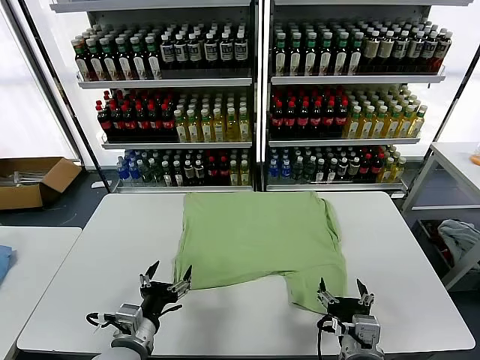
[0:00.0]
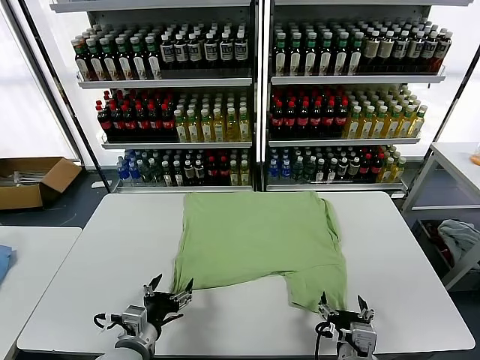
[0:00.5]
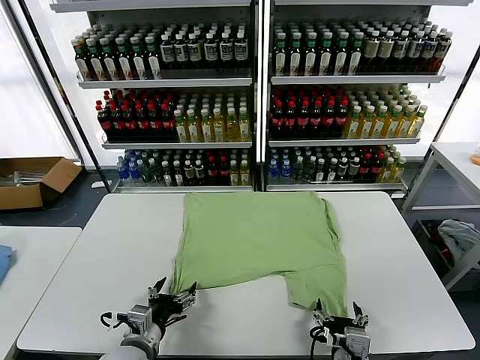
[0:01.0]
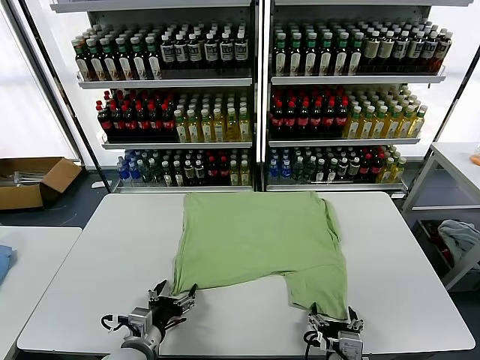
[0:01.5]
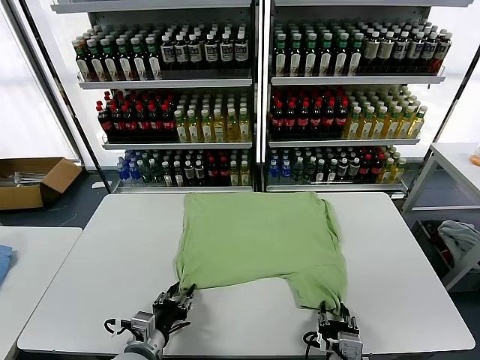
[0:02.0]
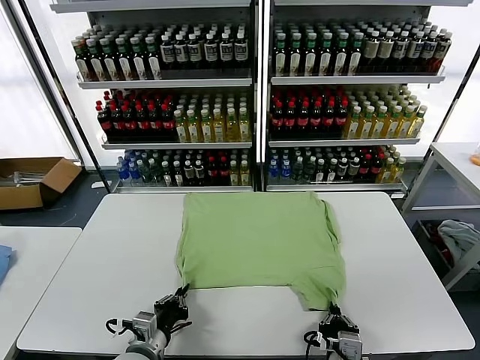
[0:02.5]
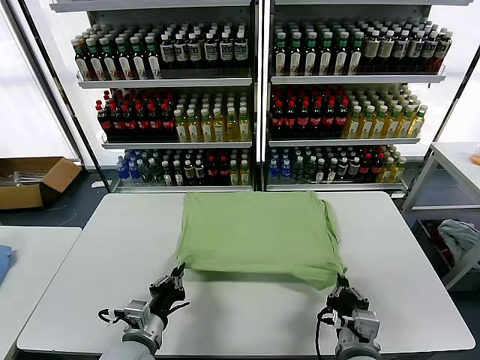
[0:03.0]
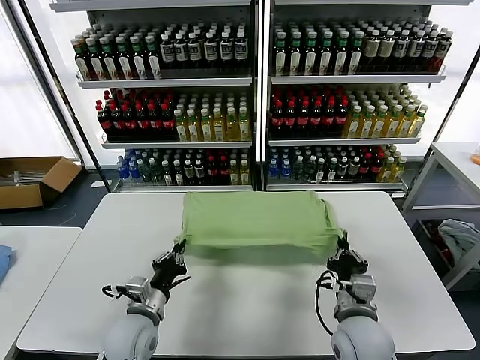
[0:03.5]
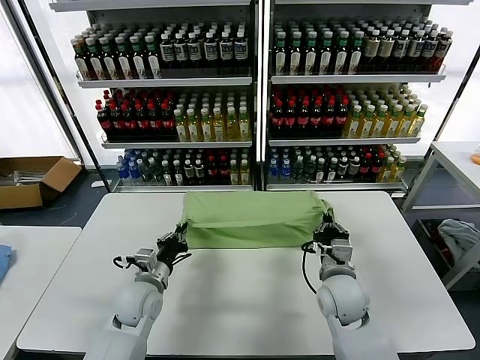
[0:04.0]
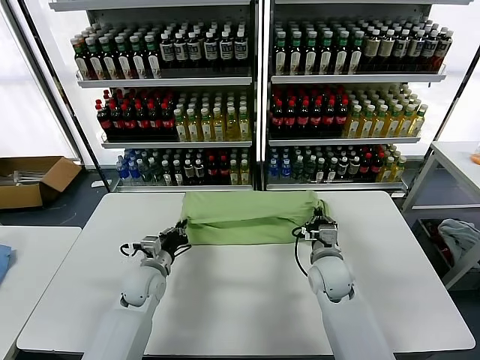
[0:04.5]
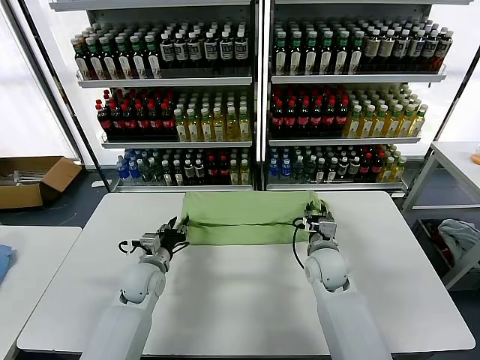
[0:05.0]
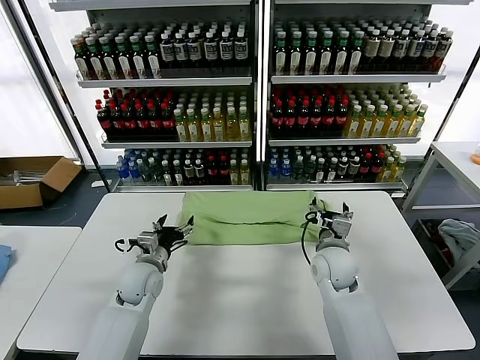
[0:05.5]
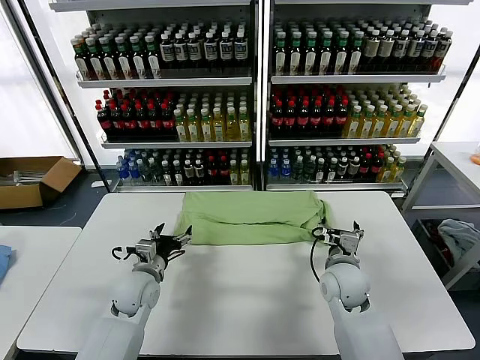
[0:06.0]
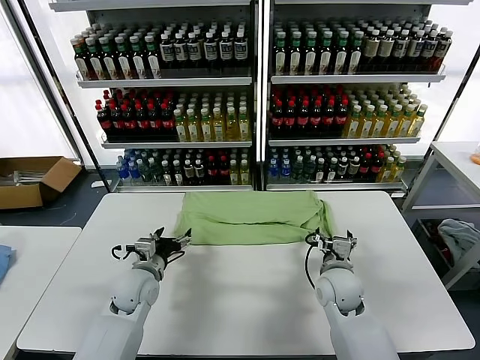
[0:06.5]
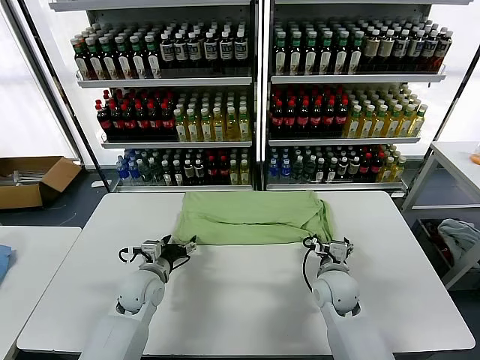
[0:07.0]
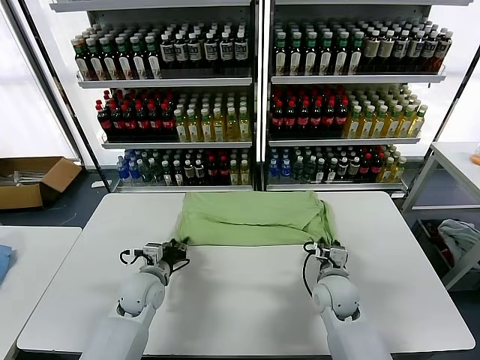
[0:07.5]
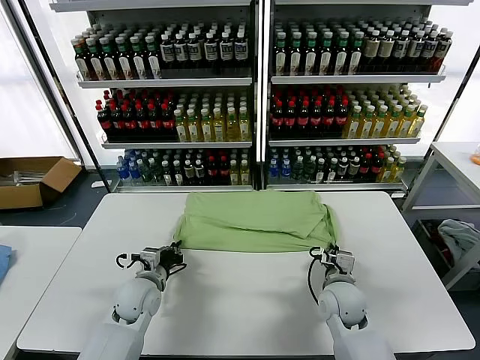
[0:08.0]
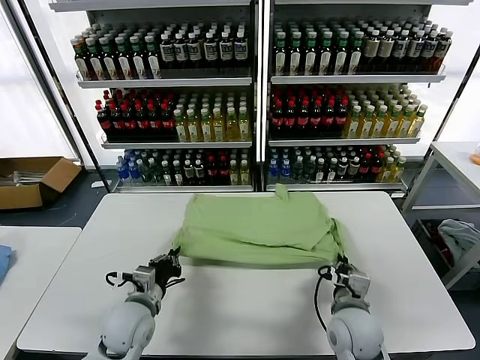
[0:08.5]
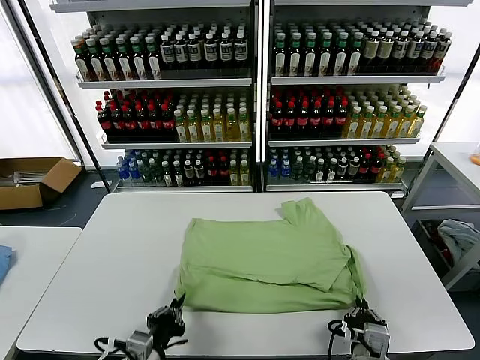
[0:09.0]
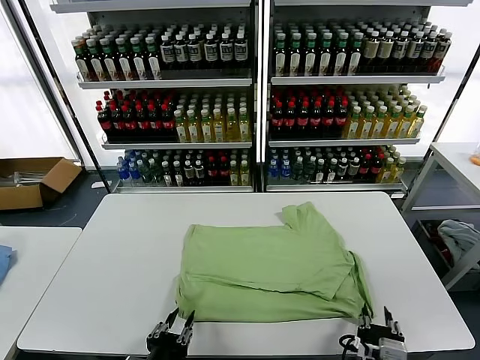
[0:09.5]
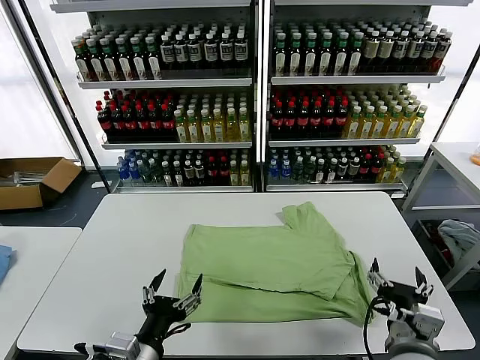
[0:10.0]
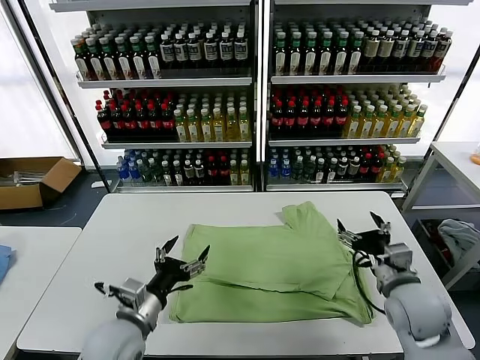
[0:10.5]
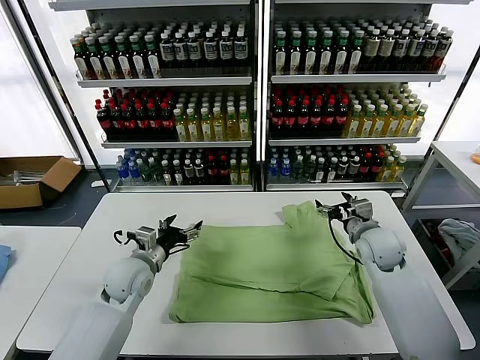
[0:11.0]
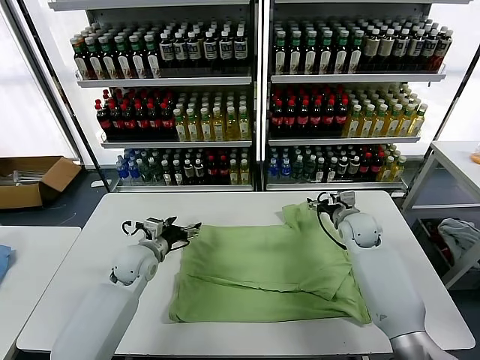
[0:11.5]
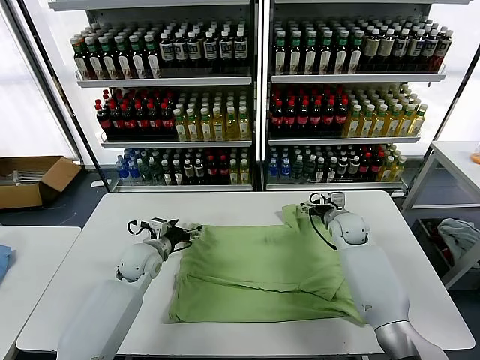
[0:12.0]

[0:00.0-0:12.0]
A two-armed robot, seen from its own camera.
Task of the whole recording: fold and organize the clothes.
Step, 0:00.0 to 0:02.0: use both grippers simultaneously to clamp the lower edge of the clothing fabric.
Step, 0:02.5 to 0:05.0: use both grippers to drag the lower edge of the fabric forward and fold it over the upper edge.
Step, 0:05.5 to 0:09.5: Drag the clothes downward with both gripper.
0:02.0 to 0:04.0: Both grippers move forward, approximately 15 cm. The right gripper closes up. Meanwhile the left gripper closes.
0:04.0 to 0:06.0: The left gripper opens its fingers. The right gripper opens.
0:06.0 to 0:08.0: The right gripper closes its fingers, while the left gripper closes.
0:08.0 to 0:10.0: Both grippers travel together backward and upward, about 20 cm. The right gripper opens its fingers; the left gripper opens its fingers.
0:10.0 to 0:12.0: The two grippers go roughly 35 cm forward.

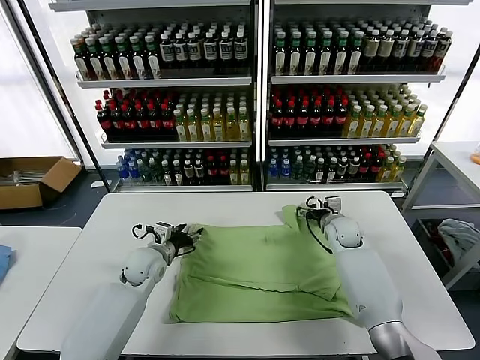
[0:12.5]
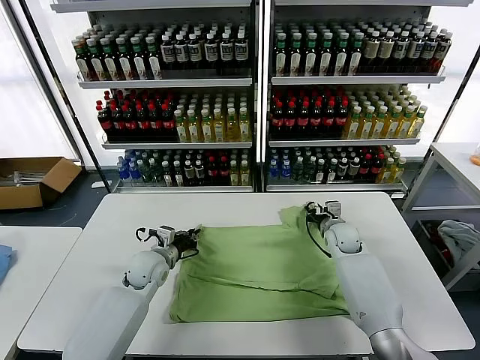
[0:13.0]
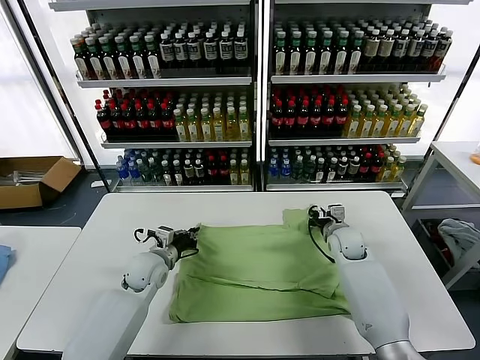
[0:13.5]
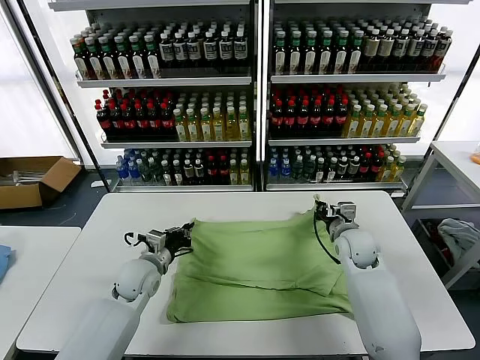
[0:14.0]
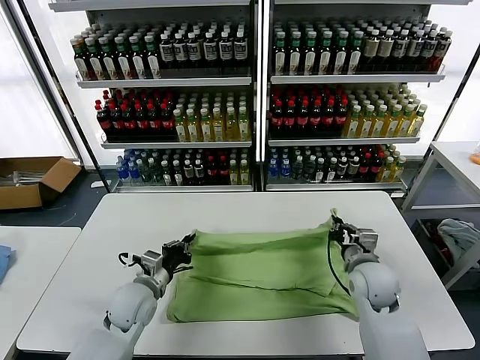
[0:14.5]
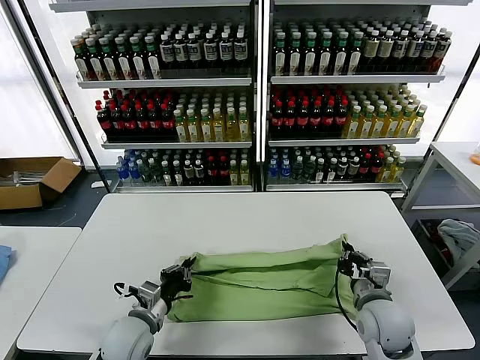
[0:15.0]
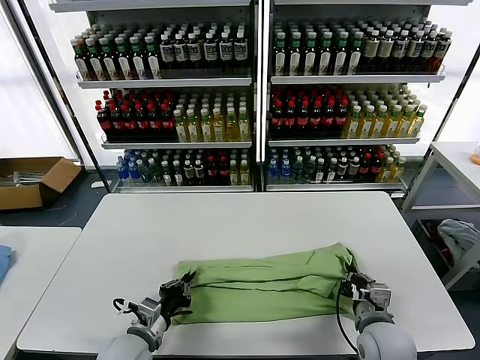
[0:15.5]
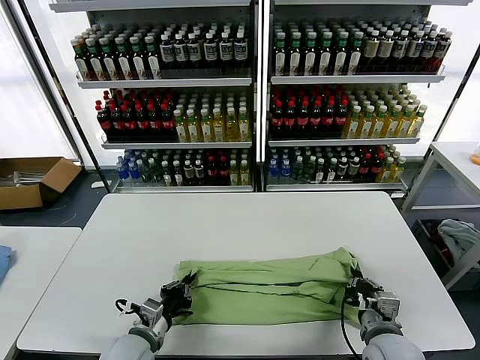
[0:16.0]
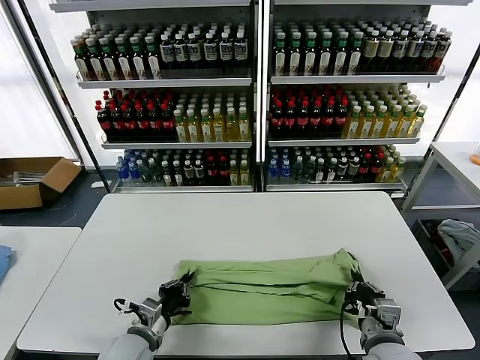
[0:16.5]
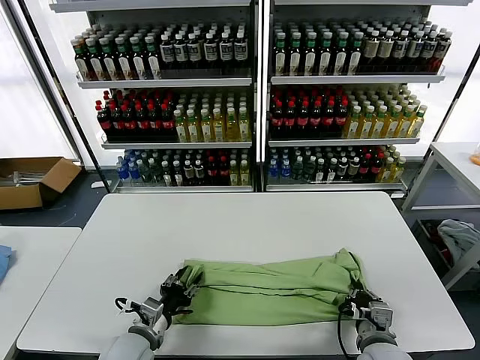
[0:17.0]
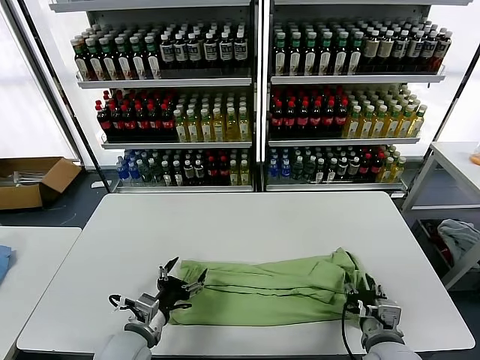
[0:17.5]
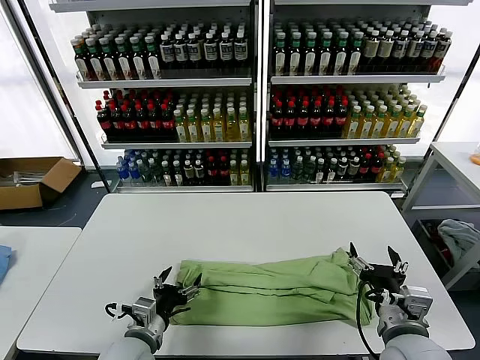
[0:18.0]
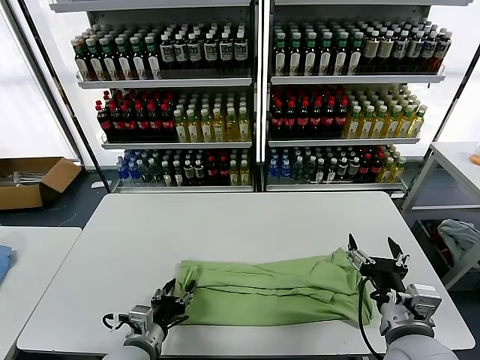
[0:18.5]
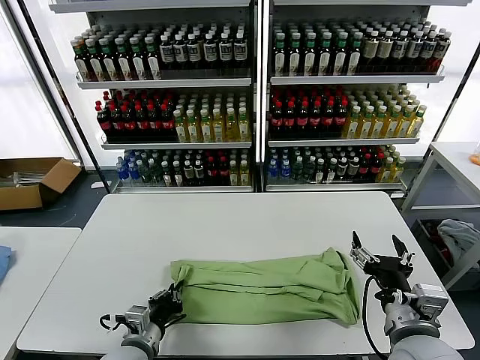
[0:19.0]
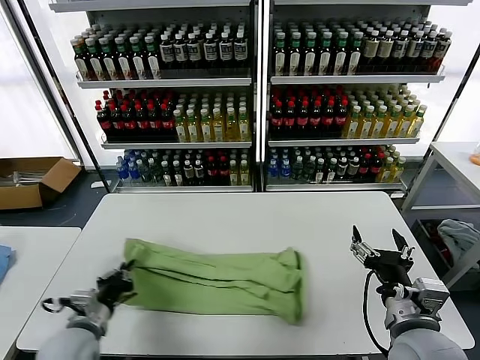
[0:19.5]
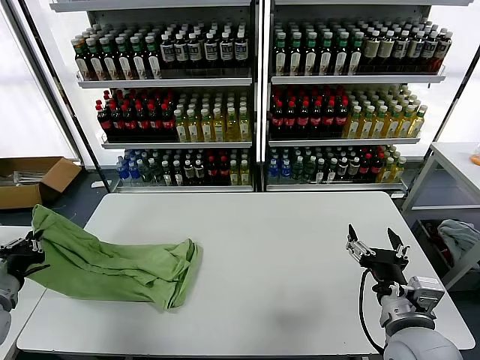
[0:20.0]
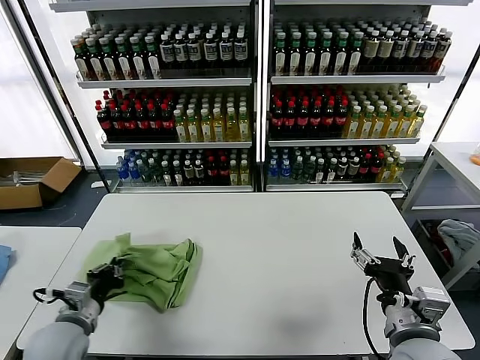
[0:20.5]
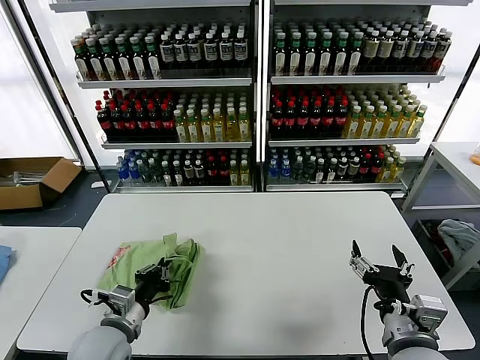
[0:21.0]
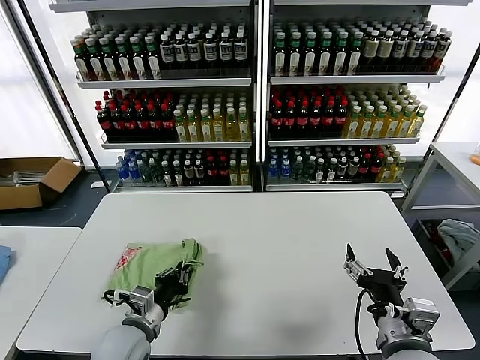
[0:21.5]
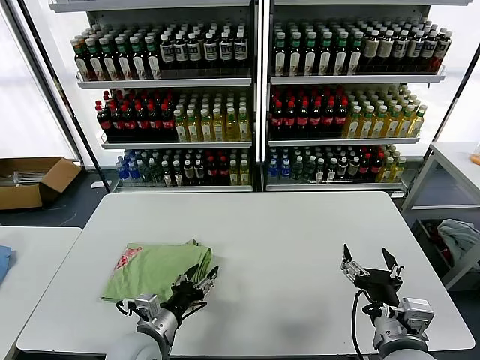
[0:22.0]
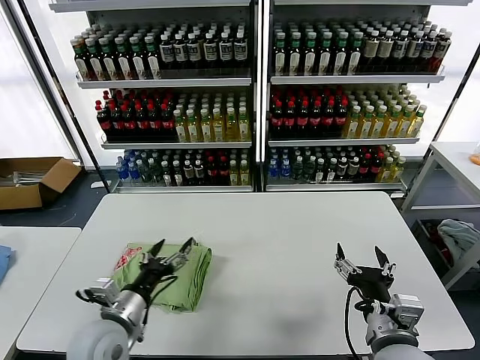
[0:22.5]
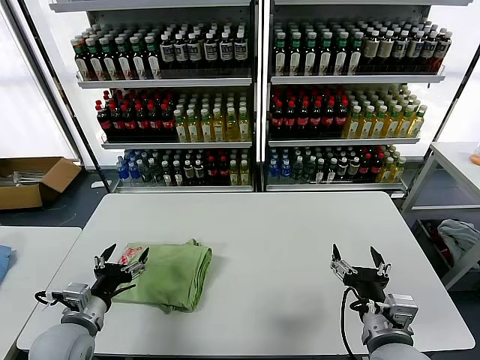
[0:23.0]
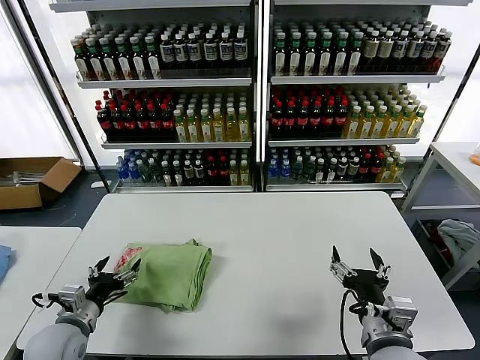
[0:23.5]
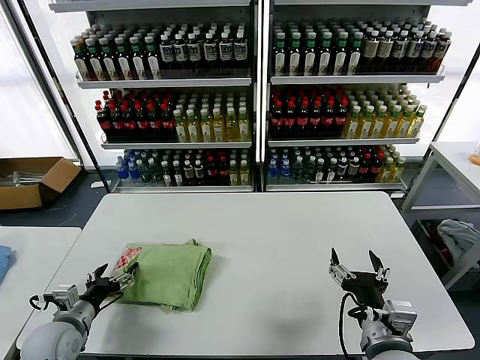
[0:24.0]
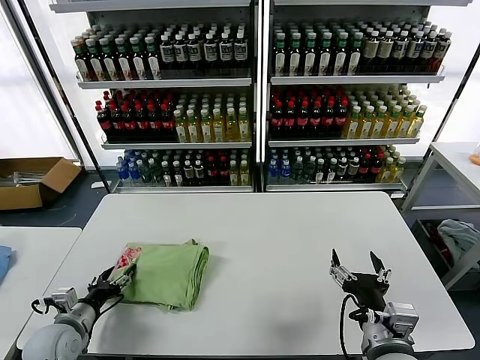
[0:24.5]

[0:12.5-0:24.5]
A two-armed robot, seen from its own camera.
Task of the whole recording: fold and organize the clothes.
Step, 0:13.5 to 0:17.5: use both grippers to drag the upper edge of the fabric backward and fold it over the lower edge.
Step, 0:18.0 to 0:19.0: use the left gripper to clamp the left edge of the fabric.
Step, 0:19.5 to 0:22.0: use the left gripper to drag the left edge of the fabric to the left and folds it over the right edge.
0:12.5 to 0:14.5: The left gripper goes some 10 cm backward, and closes its fingers. The right gripper moves backward, about 20 cm, and closes.
0:14.5 to 0:16.5: Both grippers travel together backward, approximately 15 cm.
0:16.5 to 0:18.5: The left gripper opens up. The right gripper heads upward, covering approximately 10 cm, and opens.
0:18.5 to 0:20.5: The left gripper heads to the left, covering roughly 15 cm, and closes up.
0:20.5 to 0:22.5: The left gripper goes roughly 10 cm to the right, and opens.
0:22.5 to 0:24.5: The left gripper is displaced to the left and downward by some 15 cm.

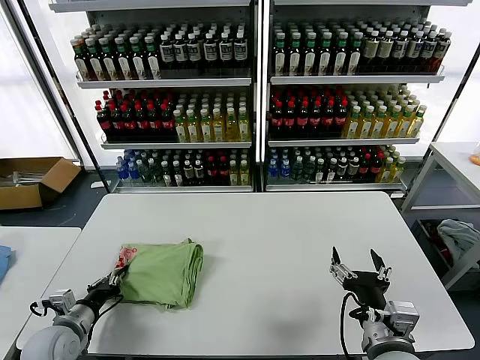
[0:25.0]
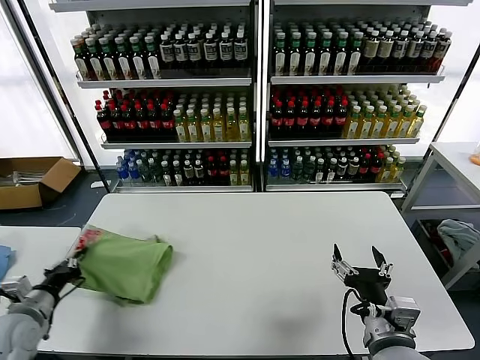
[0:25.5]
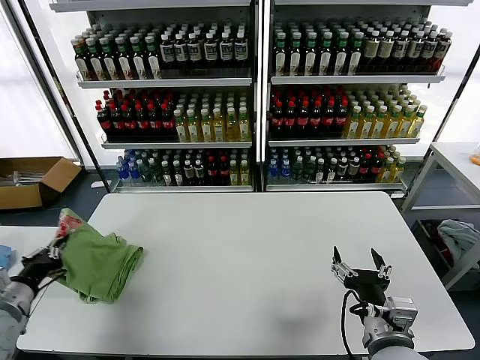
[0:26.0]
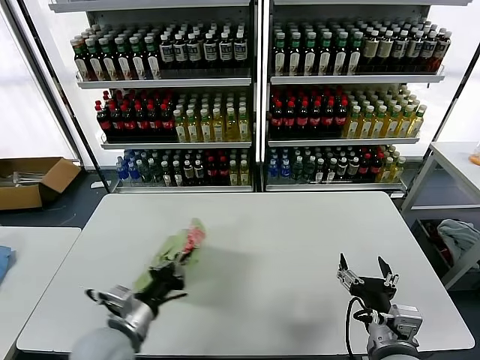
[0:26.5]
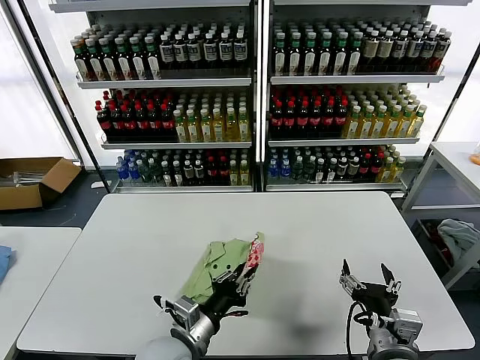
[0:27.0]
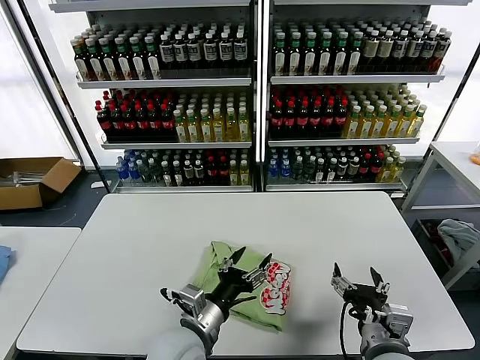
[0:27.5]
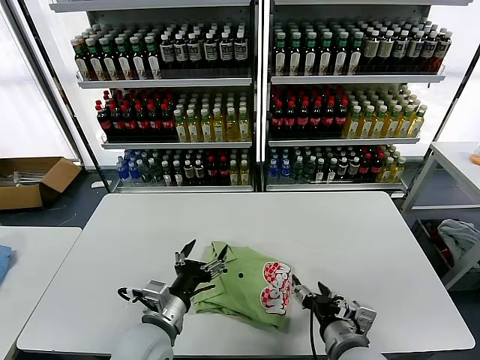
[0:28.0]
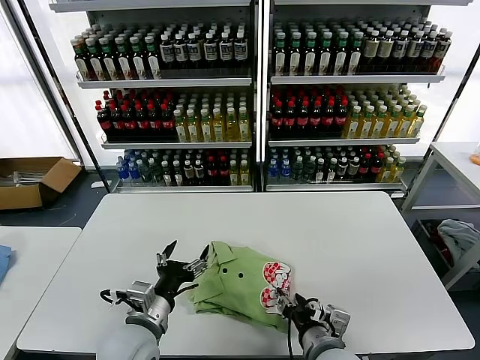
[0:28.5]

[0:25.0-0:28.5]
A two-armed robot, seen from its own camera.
Task of the whole recording: fold and organize the clothes.
Step, 0:25.0 to 0:27.0: Flip the folded clothes over with left gripper.
0:25.0 to 0:27.0: The left gripper heads to the right, covering roughly 25 cm.
0:27.0 to 0:28.5: The left gripper travels to the left by some 5 cm, and opens up. The right gripper is displaced to the left by roughly 10 cm.
